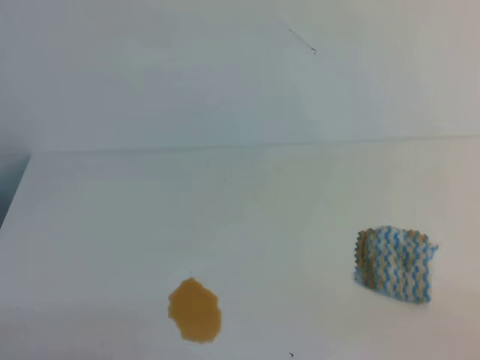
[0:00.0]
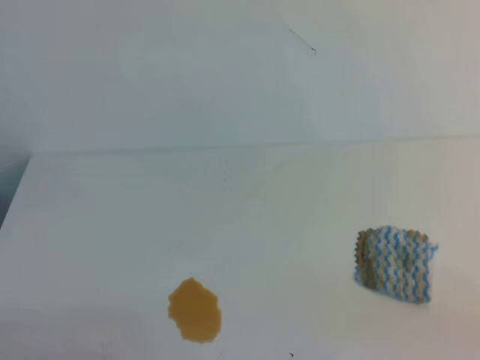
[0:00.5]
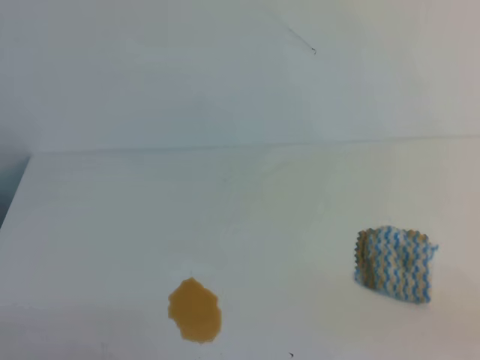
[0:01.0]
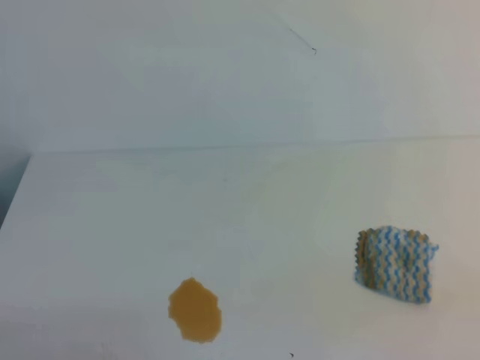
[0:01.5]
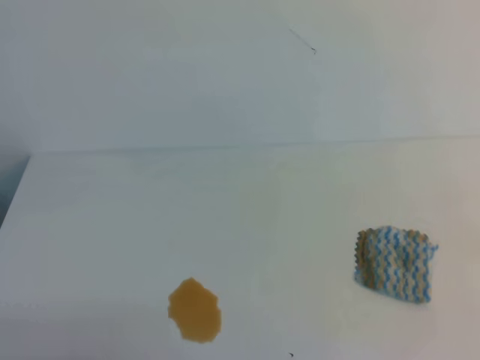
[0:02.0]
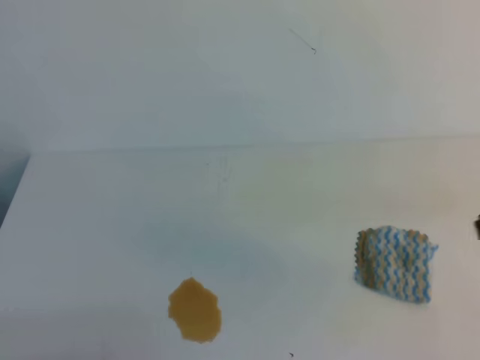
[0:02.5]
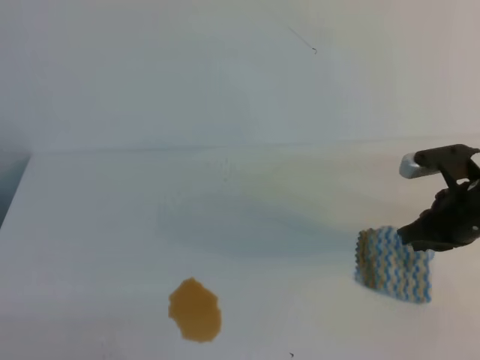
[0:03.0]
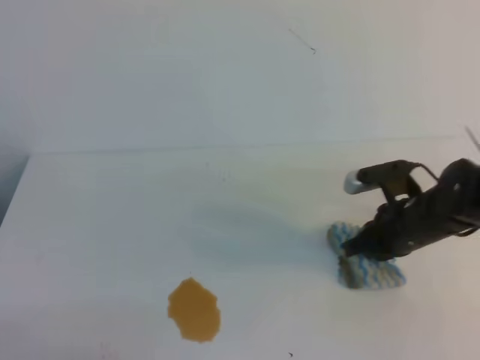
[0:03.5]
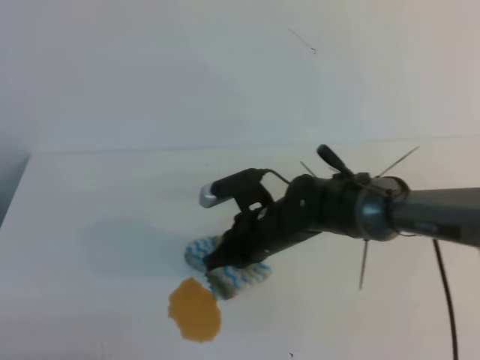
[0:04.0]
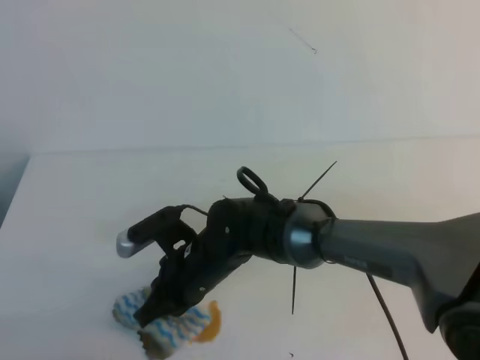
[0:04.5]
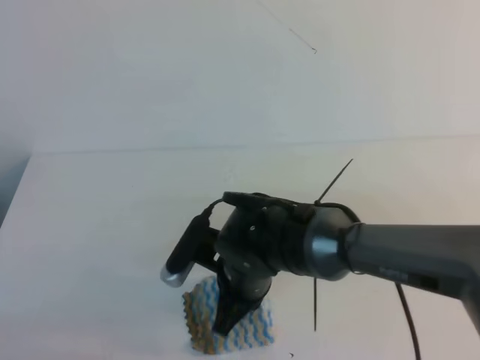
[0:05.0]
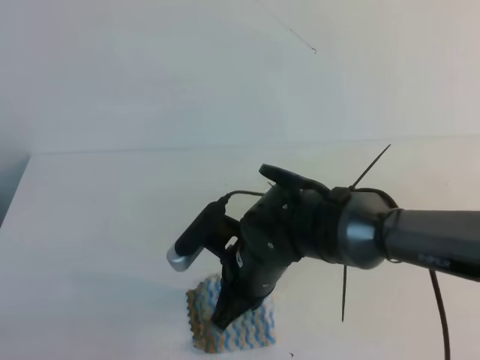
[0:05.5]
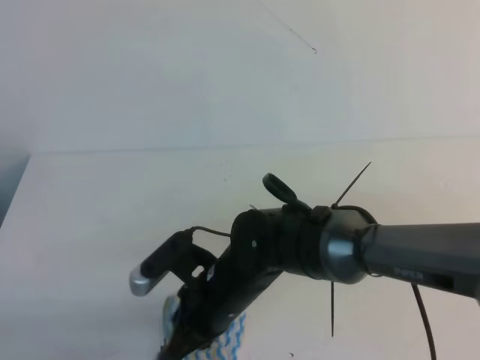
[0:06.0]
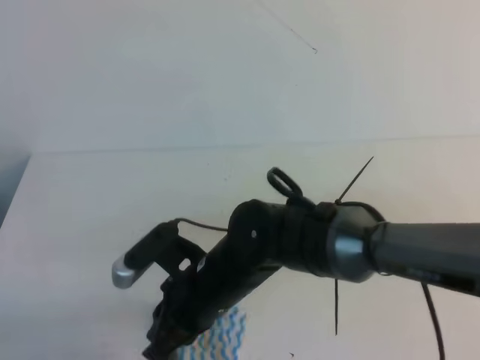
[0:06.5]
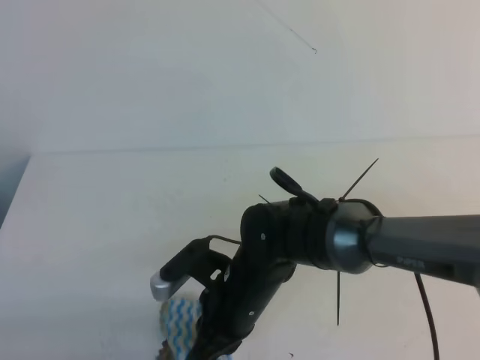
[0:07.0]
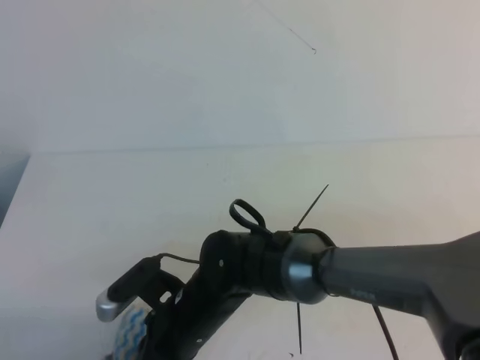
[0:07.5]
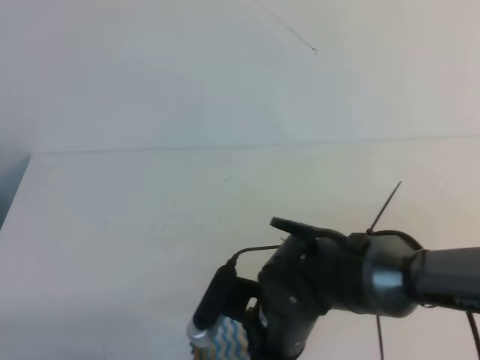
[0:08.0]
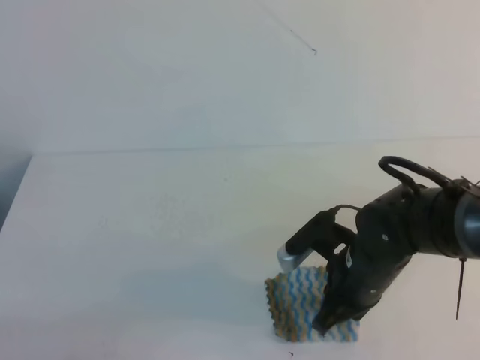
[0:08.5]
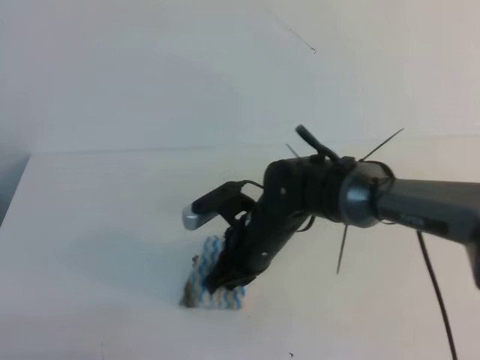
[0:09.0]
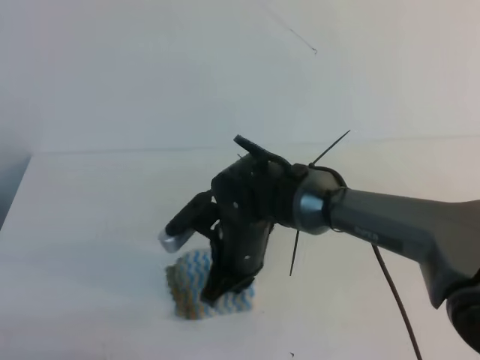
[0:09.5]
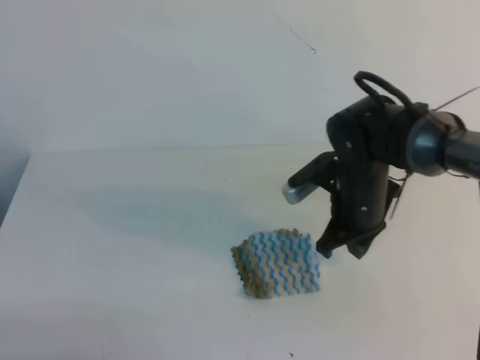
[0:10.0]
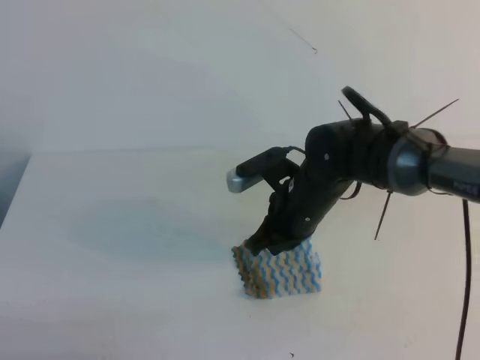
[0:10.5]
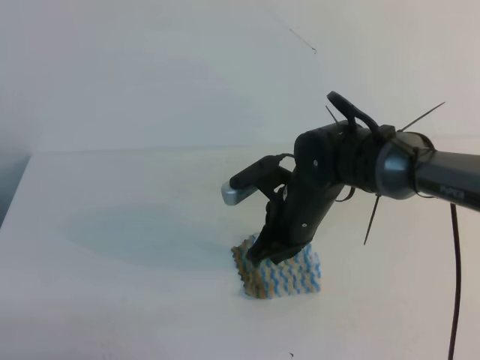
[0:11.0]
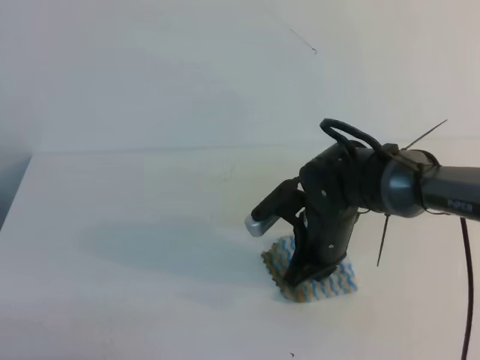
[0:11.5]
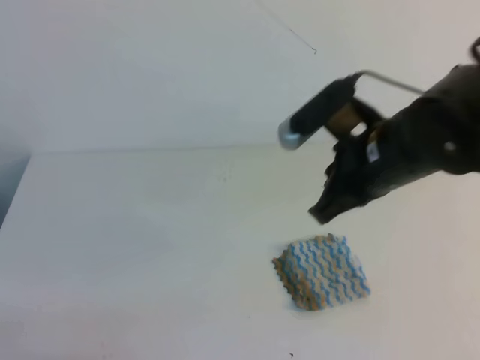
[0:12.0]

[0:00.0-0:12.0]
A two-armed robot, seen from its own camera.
0:02.0 to 0:04.0: The right gripper travels to the left, forward and downward by approximately 40 cm, and opens up.
0:04.0 to 0:06.0: The right gripper goes approximately 10 cm backward and to the left.
0:06.0 to 0:08.0: The right gripper shifts by roughly 5 cm.
0:08.0 to 0:10.0: The right gripper shifts some 15 cm forward and to the right.
0:10.0 to 0:12.0: The right gripper travels upward and backward by roughly 10 cm.

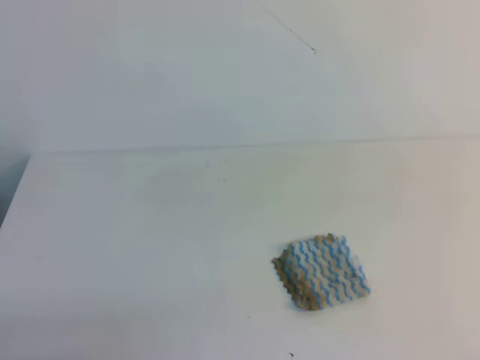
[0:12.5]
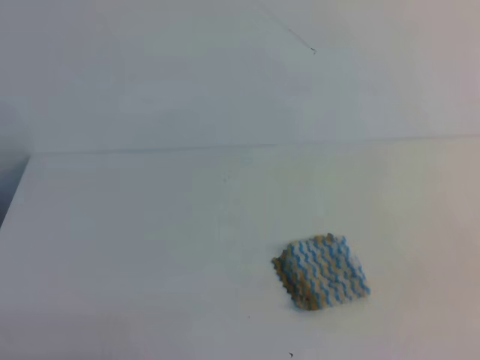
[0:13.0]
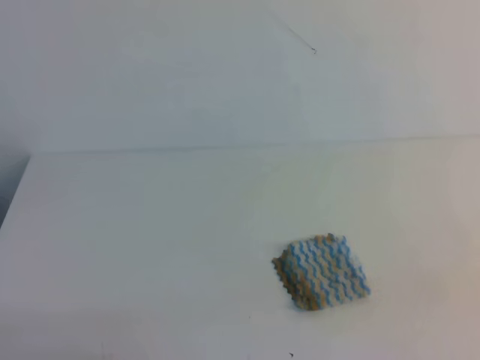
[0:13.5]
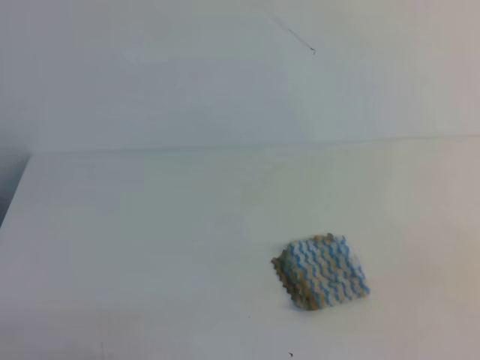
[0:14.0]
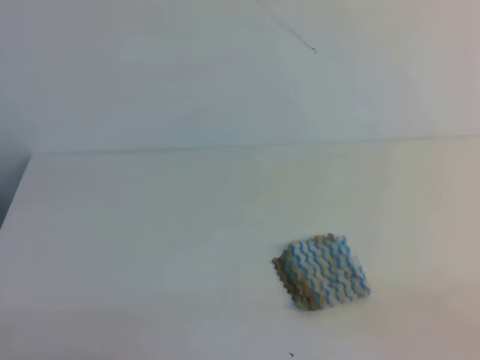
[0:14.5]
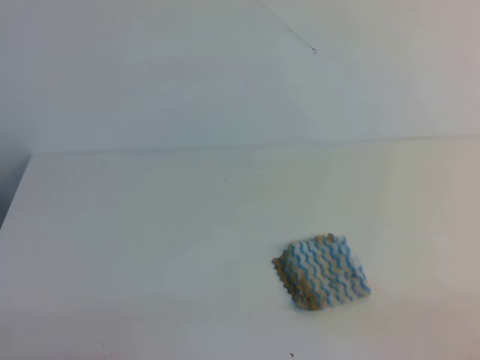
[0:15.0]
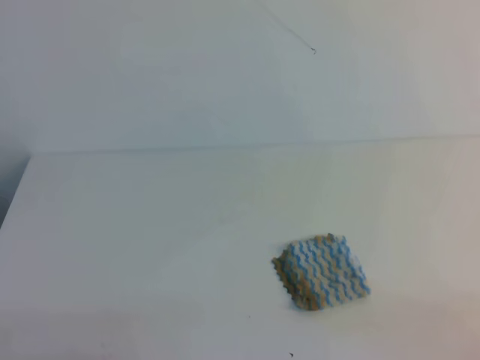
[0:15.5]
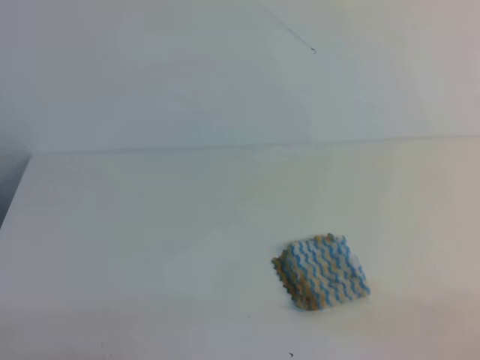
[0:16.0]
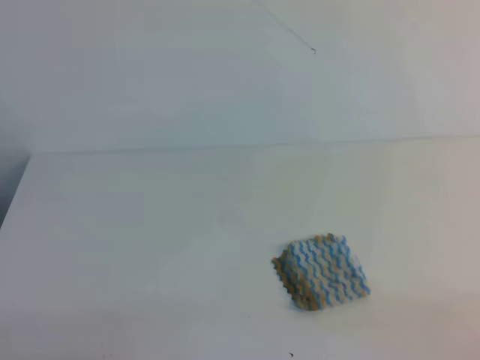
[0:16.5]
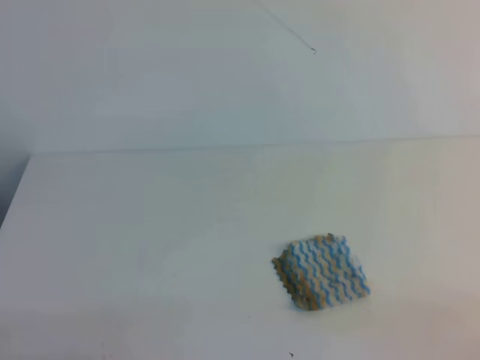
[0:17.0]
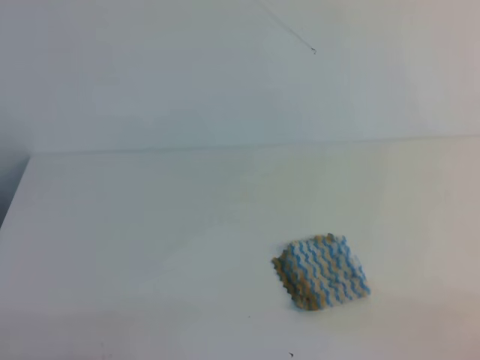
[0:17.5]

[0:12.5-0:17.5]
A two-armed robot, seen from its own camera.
0:12.5 to 0:15.0: The right gripper moves downward, backward and to the right, approximately 25 cm, and closes its fingers.
0:15.0 to 0:17.5: Neither gripper changes place.
